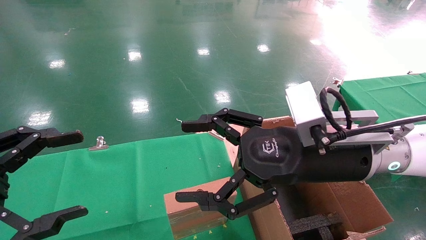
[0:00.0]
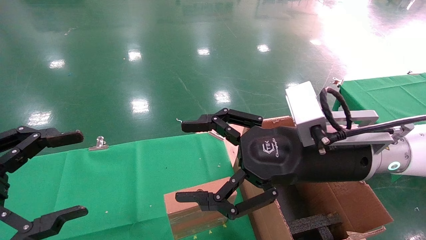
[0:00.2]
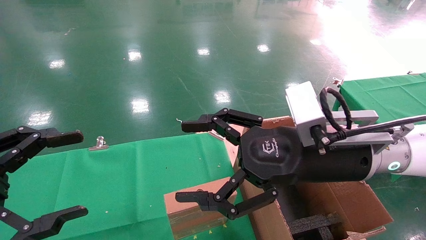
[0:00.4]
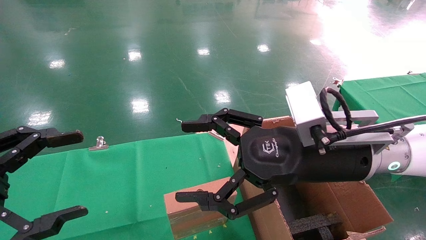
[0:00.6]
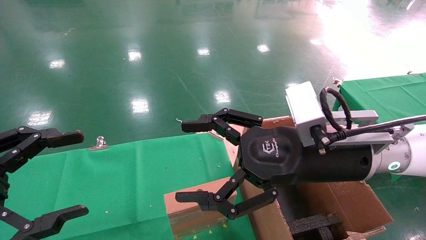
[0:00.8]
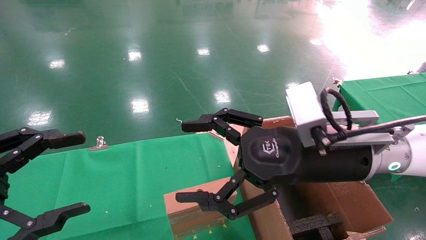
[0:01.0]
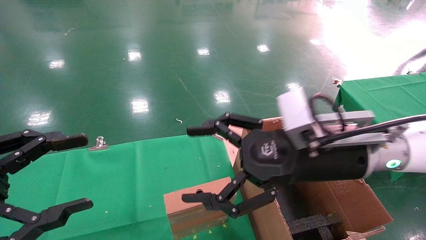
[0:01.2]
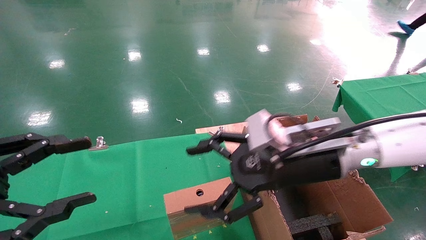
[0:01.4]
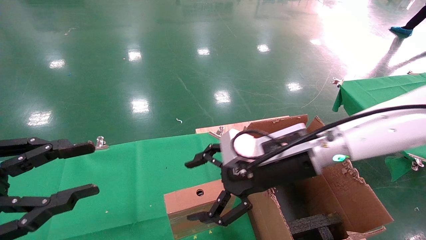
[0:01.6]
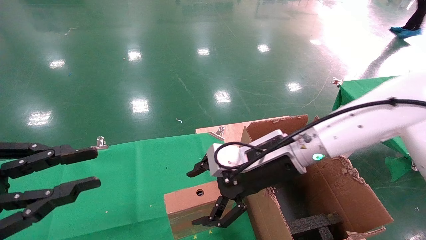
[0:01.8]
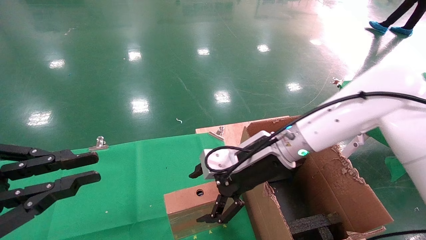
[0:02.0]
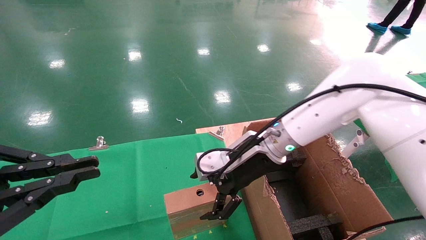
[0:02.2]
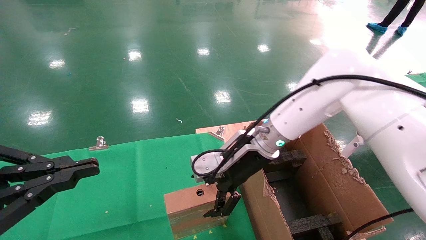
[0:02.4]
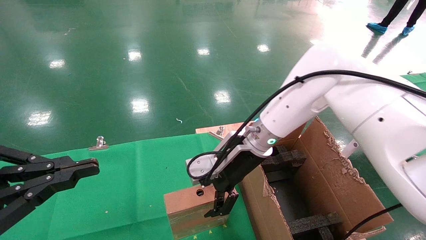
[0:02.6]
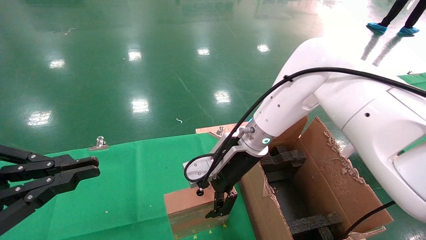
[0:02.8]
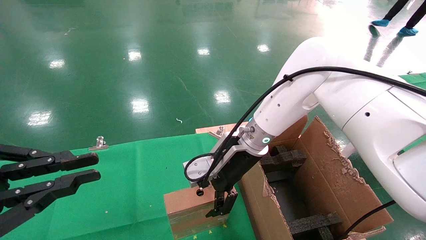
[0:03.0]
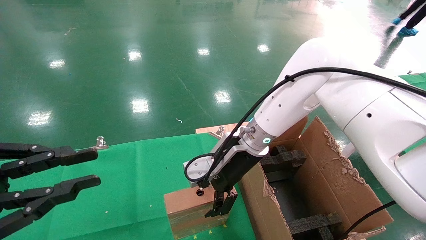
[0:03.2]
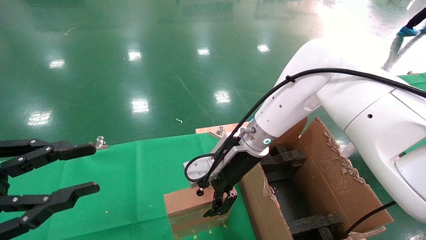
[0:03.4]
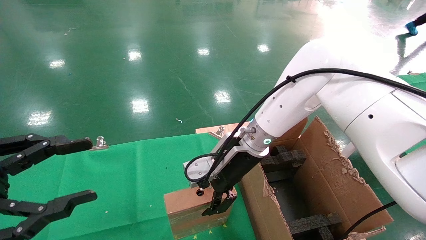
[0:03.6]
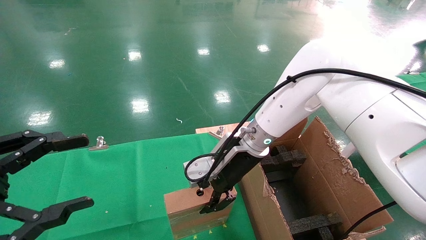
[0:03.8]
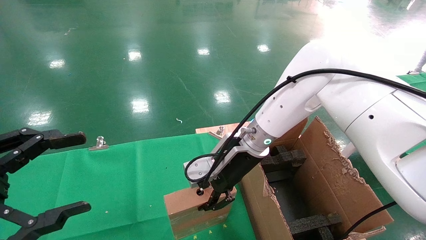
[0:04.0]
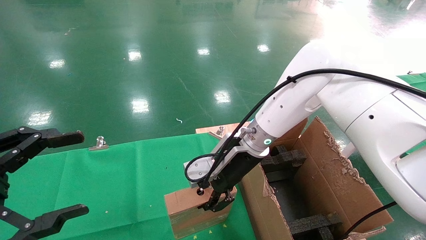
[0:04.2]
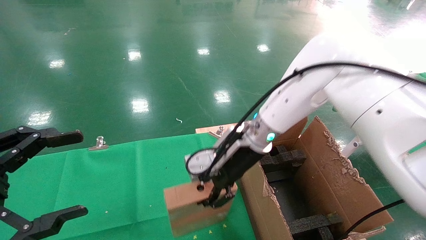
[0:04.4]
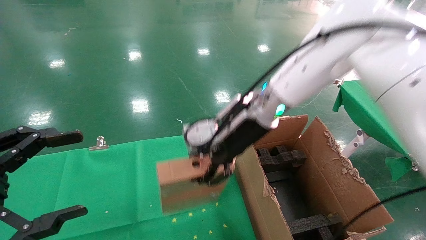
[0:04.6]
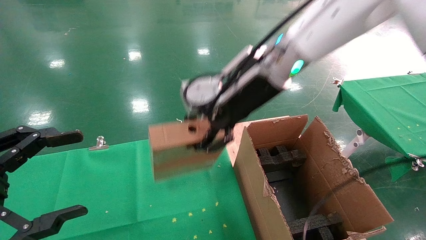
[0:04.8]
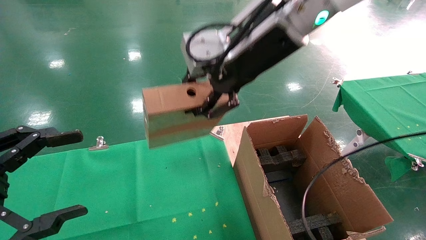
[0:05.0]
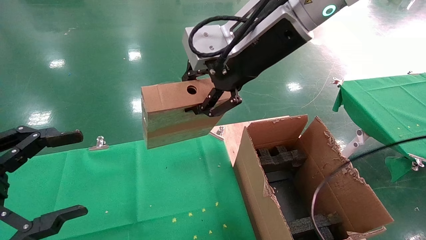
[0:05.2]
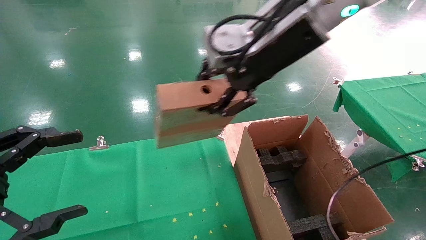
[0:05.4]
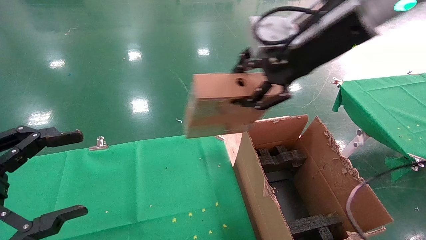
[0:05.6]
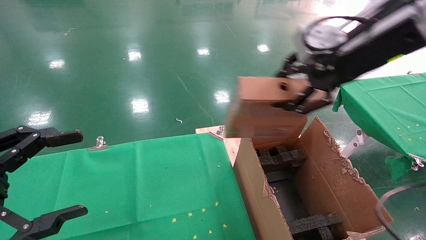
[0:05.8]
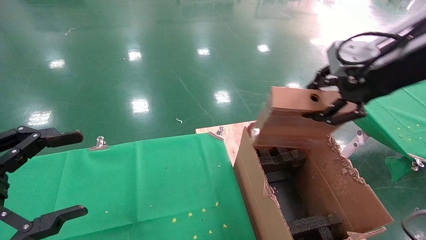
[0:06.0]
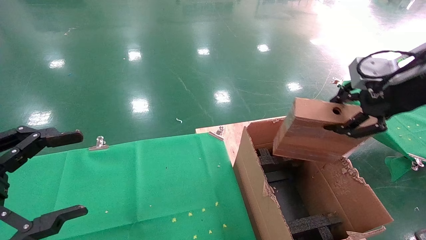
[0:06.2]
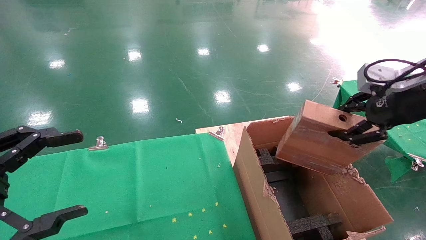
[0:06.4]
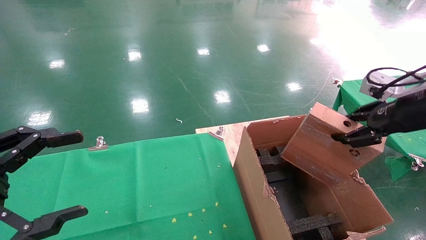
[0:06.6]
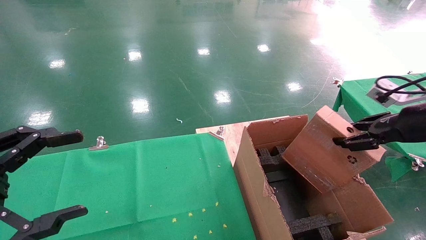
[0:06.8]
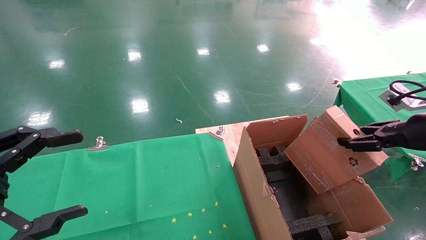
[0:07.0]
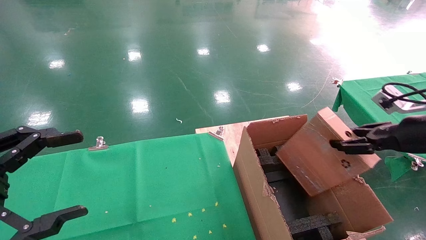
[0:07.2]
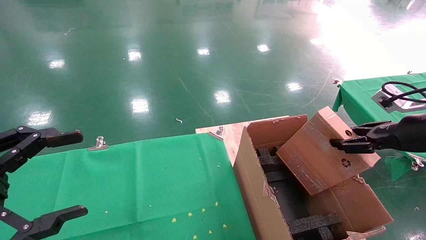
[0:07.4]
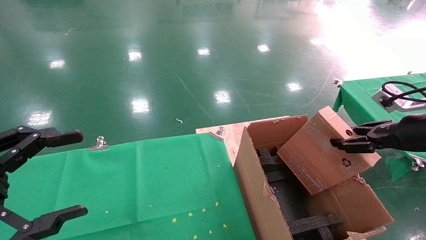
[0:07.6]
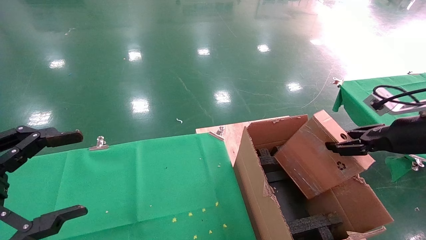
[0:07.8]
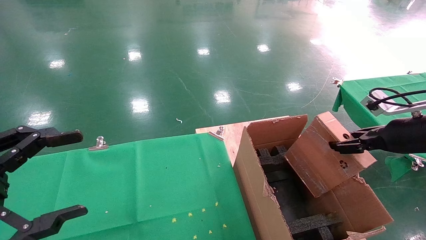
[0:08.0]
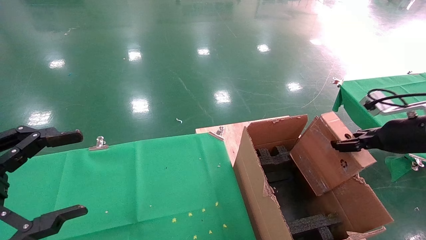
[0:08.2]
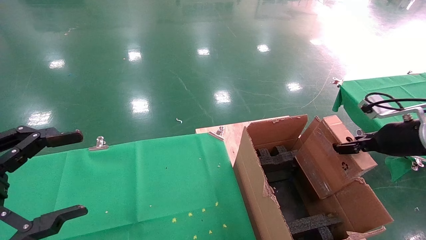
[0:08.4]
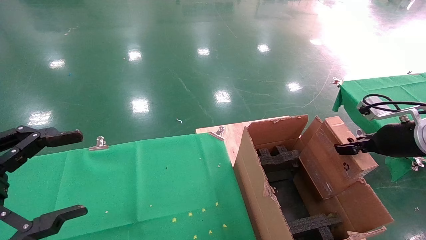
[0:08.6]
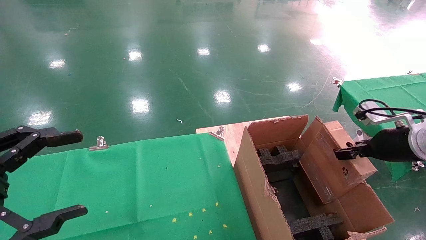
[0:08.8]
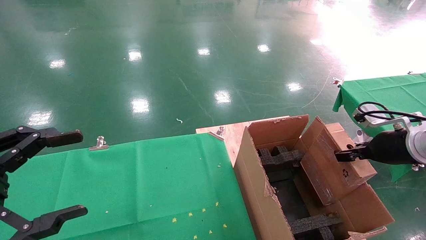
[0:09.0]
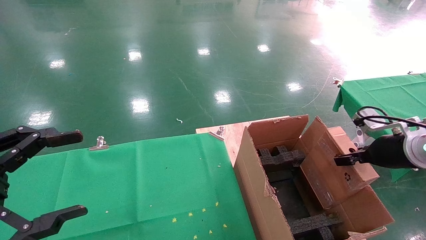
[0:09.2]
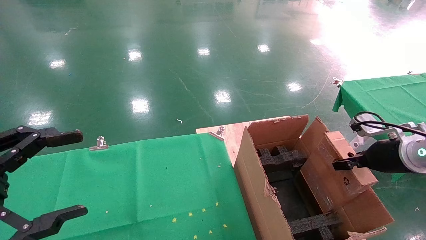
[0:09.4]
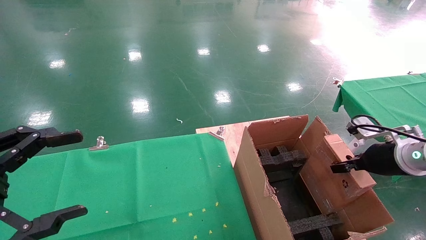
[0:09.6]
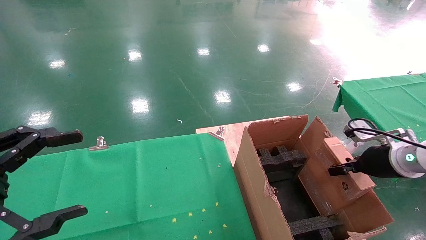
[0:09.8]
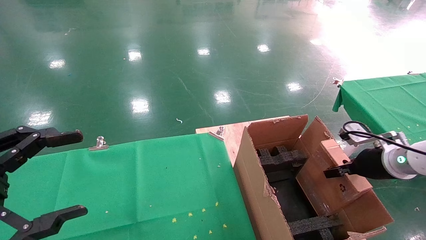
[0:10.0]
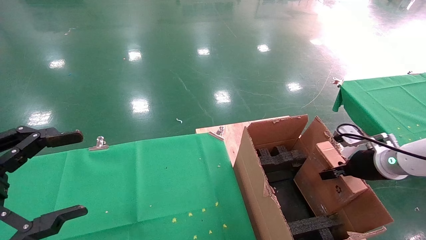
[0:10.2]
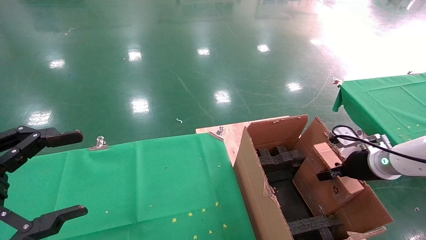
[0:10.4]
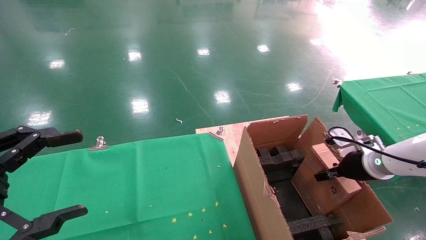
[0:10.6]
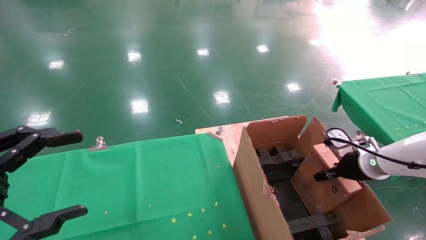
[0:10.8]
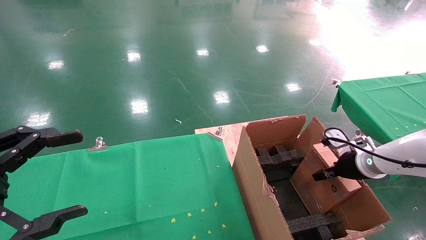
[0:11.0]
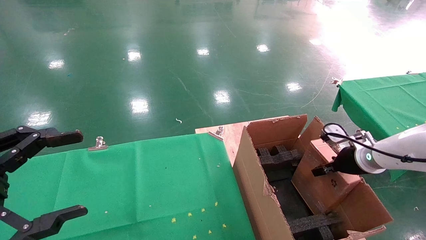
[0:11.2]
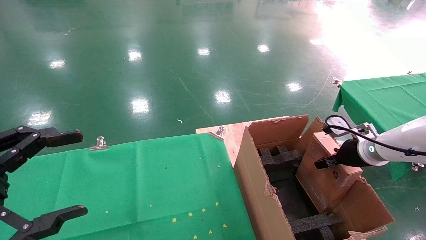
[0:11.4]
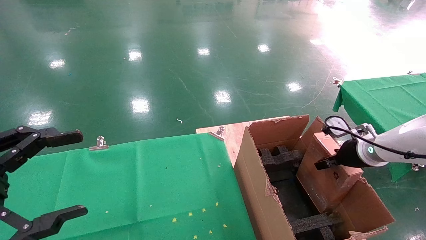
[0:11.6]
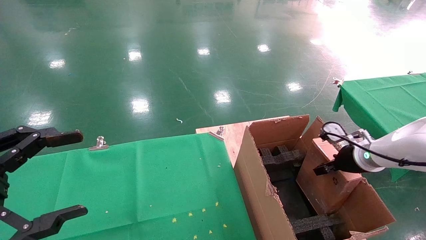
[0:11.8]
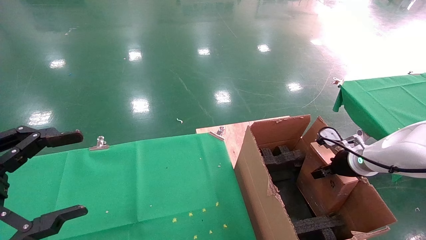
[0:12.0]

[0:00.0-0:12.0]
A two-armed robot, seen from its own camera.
Task of the whole recording: using a robotic arm to pick up a cardboard box and palace it the carton.
Step, 0:01.2 to 0:04.0: Pick up the mouse and the power cord paper box.
0:00.0 to 0:01.6: The right gripper goes approximately 5 cm forward. Meanwhile the left gripper closes up.
0:01.6 to 0:03.0: The left gripper closes, while the right gripper goes approximately 10 cm forward and to the left.
0:03.0 to 0:04.4: The left gripper opens, while the right gripper closes its fingers.
0:04.4 to 0:06.0: The right gripper goes approximately 30 cm to the right, upward and backward.
0:06.0 to 0:07.6: The right gripper travels downward and to the right by some 20 cm.
0:07.6 to 0:09.0: The right gripper ends up about 5 cm from where it was.
0:09.0 to 0:10.4: The right gripper travels downward by approximately 5 cm.
0:10.4 to 0:12.0: There are only small adjustments of the grippers.

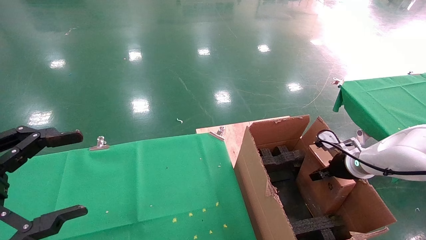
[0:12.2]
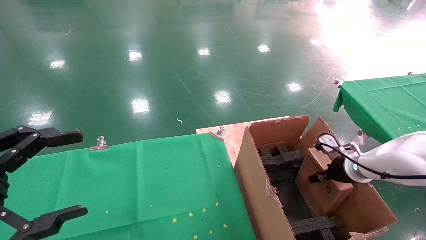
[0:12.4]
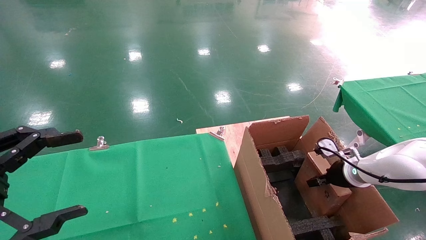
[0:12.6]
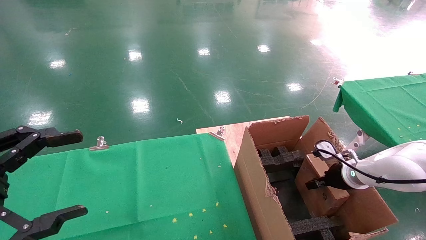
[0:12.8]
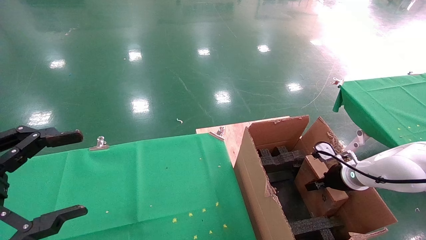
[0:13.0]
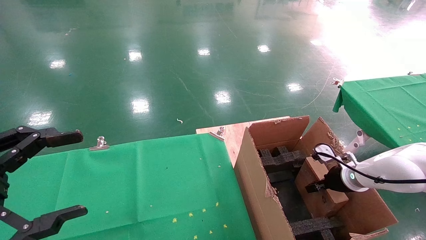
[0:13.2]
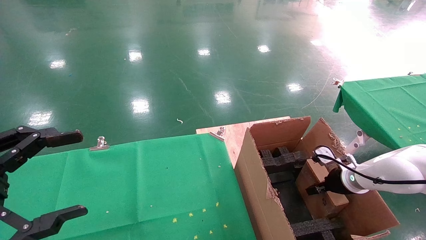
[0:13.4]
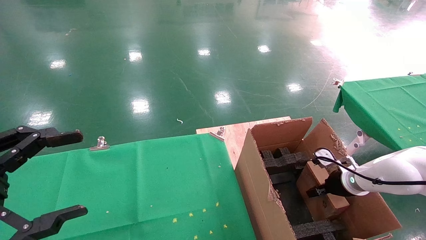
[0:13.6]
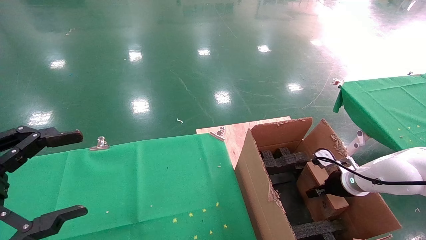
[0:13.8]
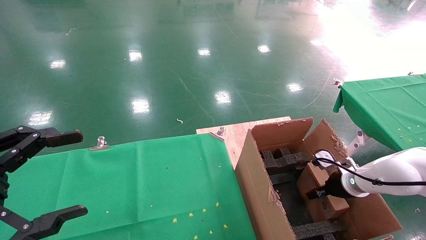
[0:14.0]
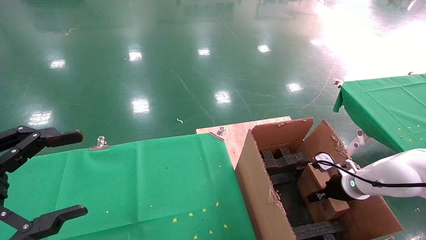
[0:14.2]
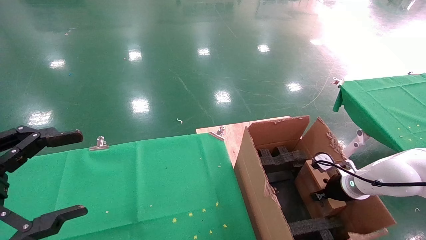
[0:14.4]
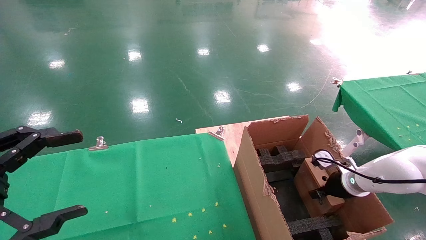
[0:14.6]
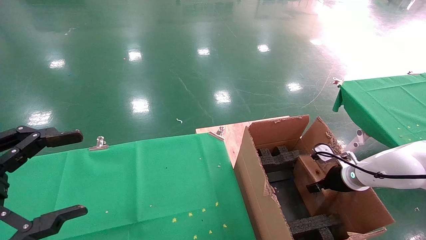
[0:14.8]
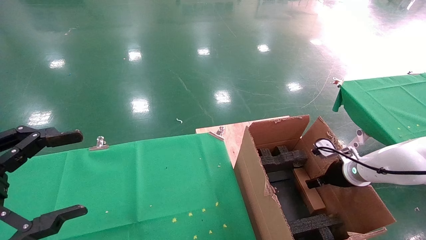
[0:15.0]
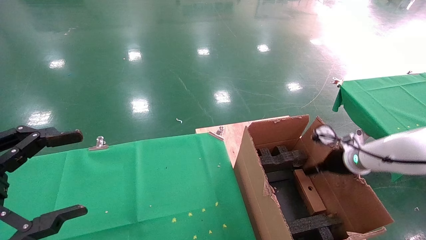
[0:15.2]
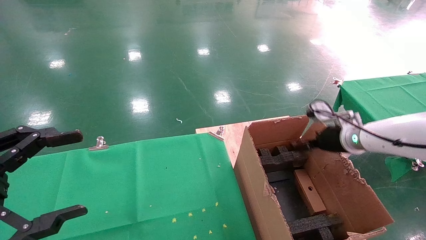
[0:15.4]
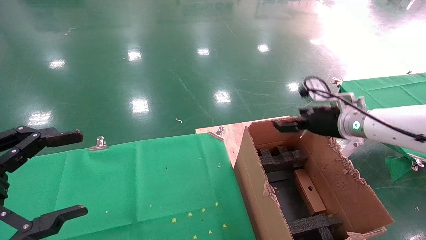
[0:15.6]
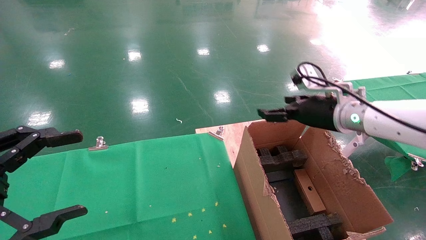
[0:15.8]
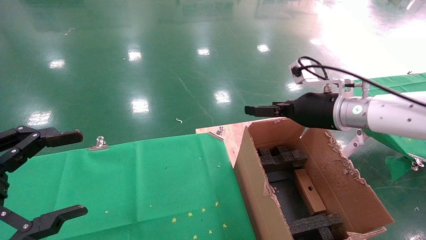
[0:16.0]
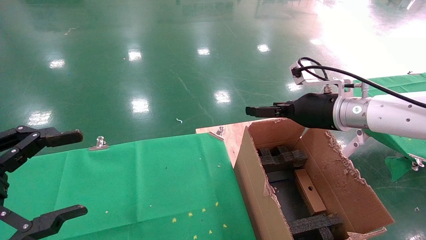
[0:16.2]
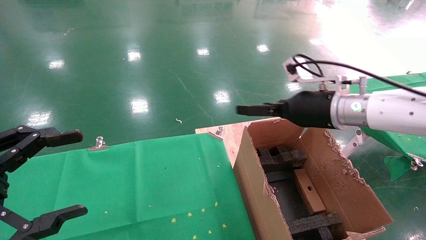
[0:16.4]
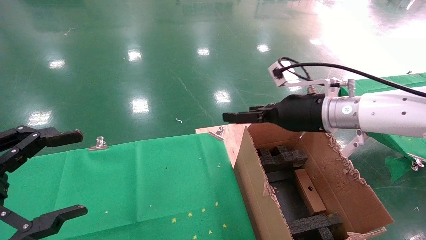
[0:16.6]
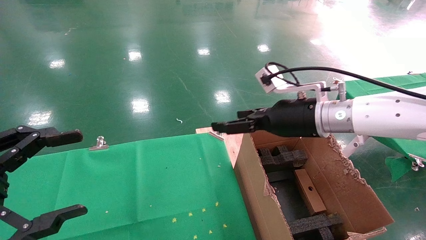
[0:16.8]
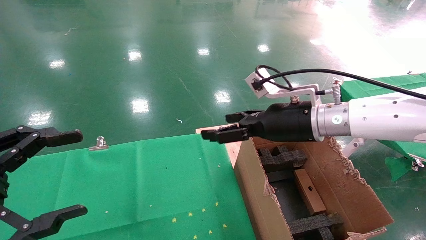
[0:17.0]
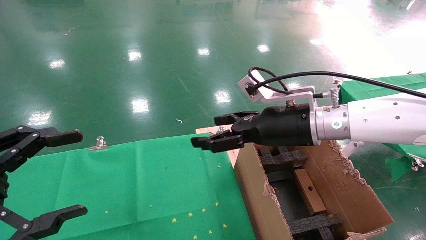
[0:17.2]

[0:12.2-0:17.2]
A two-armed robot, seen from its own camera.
Task of the whole recording: using a robotic arm to pick up a cardboard box and palace it the carton.
Step, 0:12.2 to 0:15.0: Place the mouse and the power cord paper box into the container.
0:12.2 to 0:13.8: The right gripper moves downward, about 5 cm.
0:13.8 to 0:15.6: The right gripper moves upward, approximately 20 cm, and opens its fingers.
0:15.6 to 0:17.2: The right gripper heads to the left and backward, covering approximately 15 cm.
